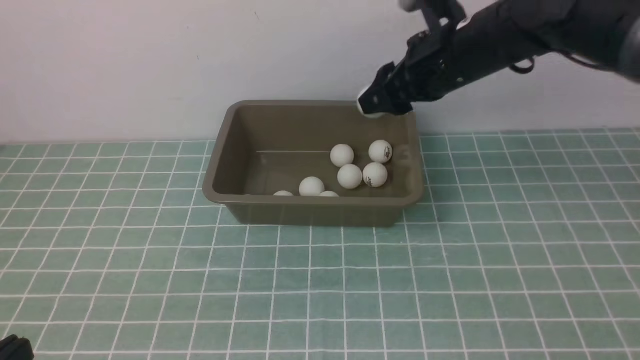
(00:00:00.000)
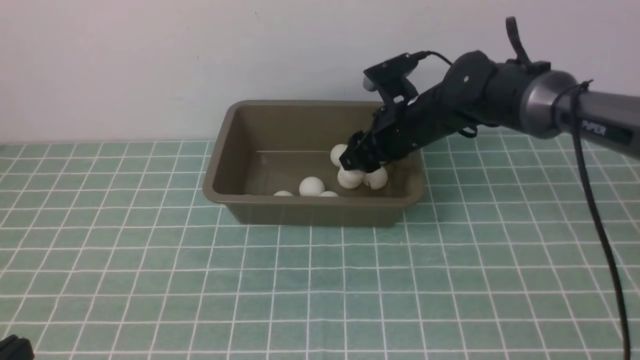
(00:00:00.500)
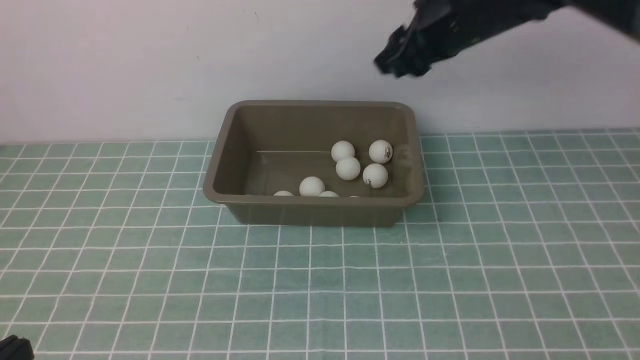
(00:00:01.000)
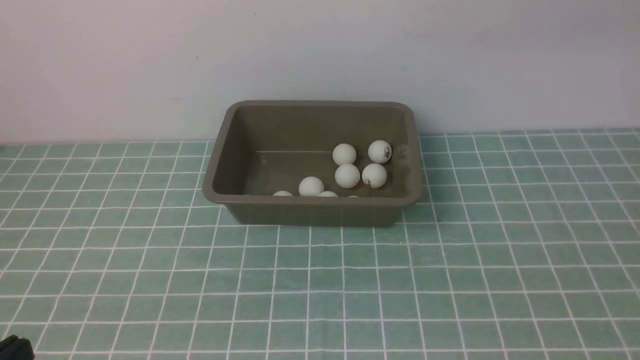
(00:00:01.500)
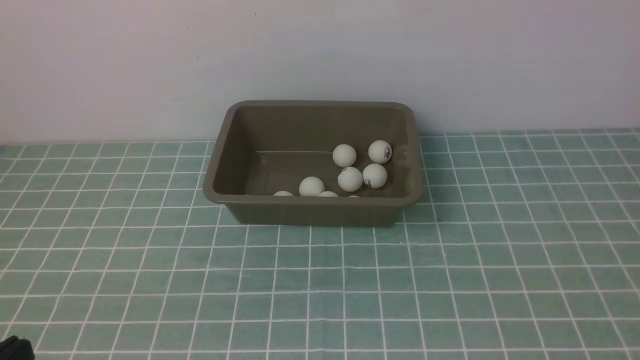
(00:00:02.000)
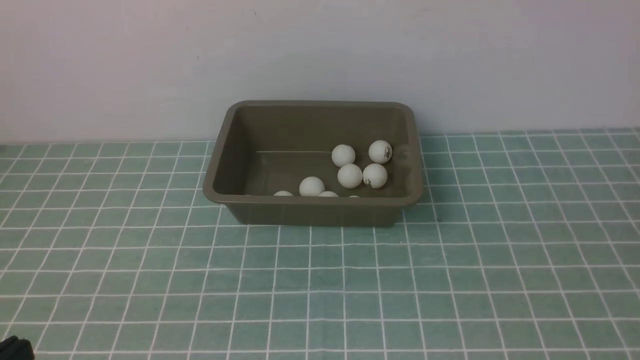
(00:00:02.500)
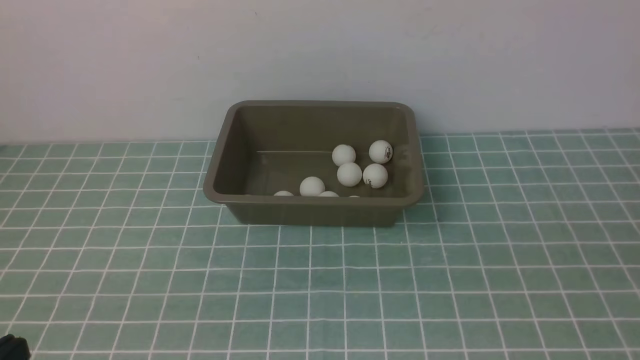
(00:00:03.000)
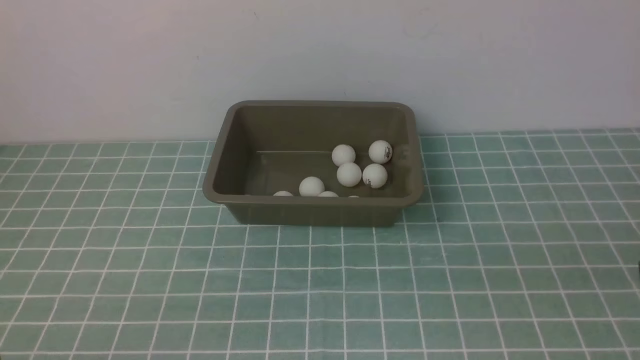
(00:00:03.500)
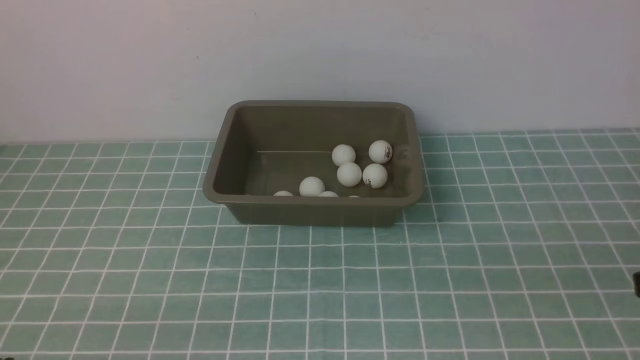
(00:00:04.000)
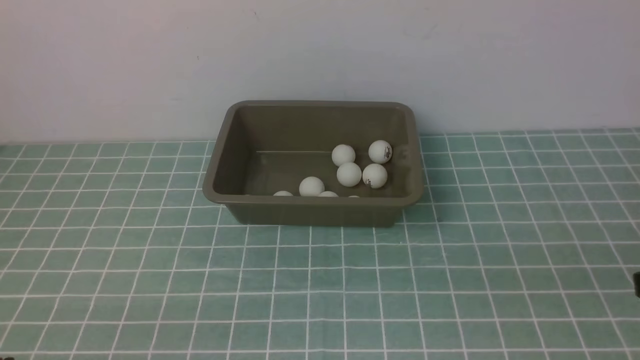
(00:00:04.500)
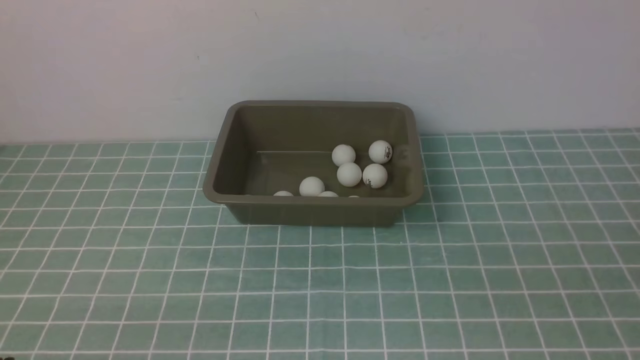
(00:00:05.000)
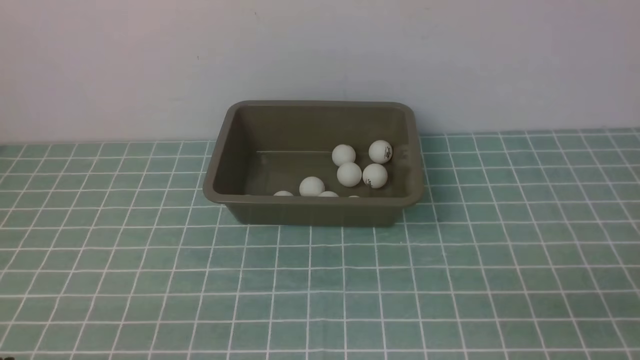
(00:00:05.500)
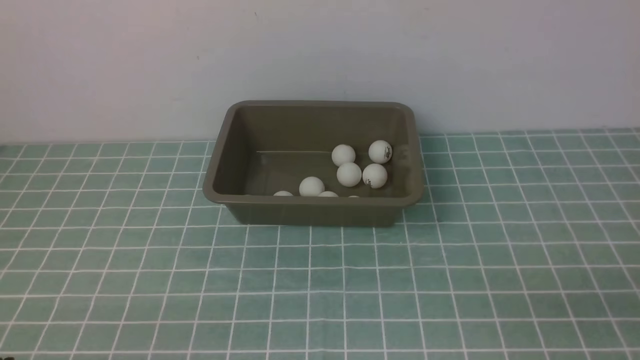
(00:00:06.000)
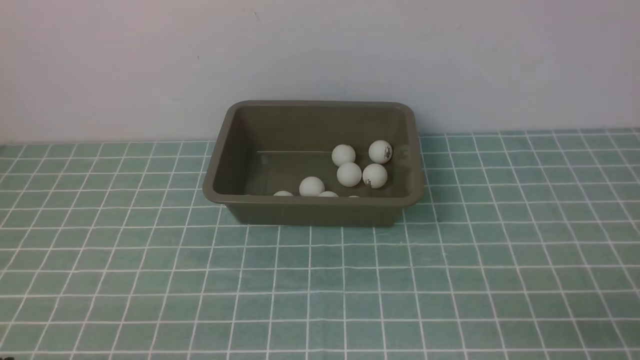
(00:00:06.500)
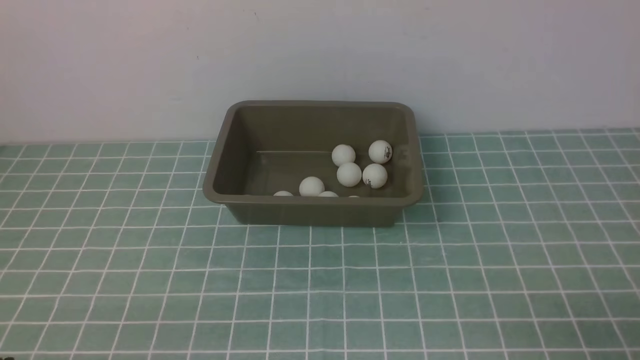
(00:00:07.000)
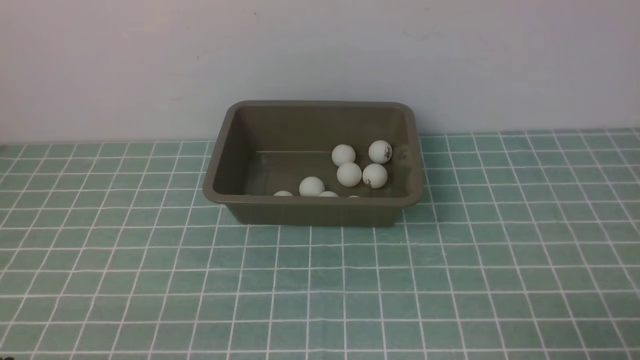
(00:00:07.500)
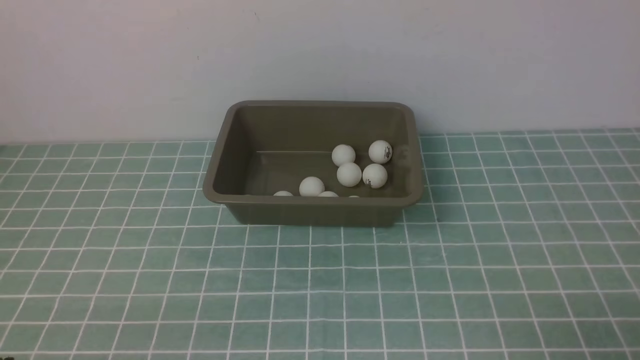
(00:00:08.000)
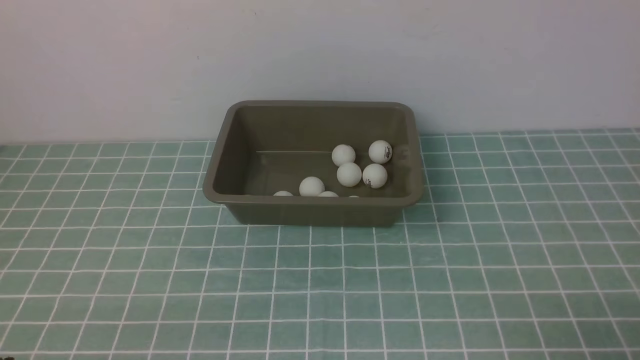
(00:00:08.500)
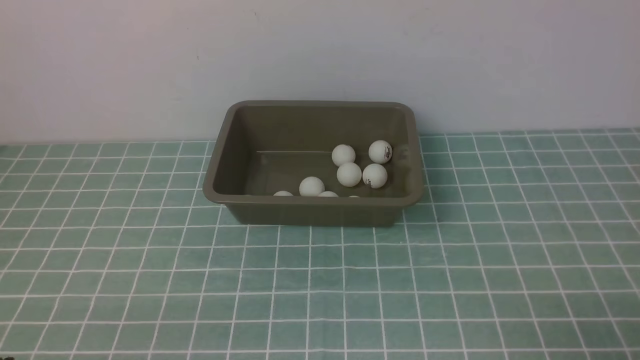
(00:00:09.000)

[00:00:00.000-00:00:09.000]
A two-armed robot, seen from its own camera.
00:00:00.000 to 00:00:02.000: The right gripper travels backward, to the right and upward by some 40 cm, and closes up.
00:00:07.000 to 00:00:09.000: Both grippers stay put.
